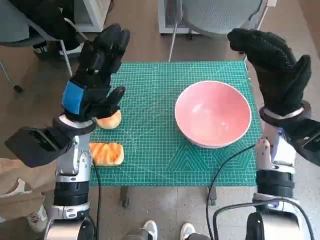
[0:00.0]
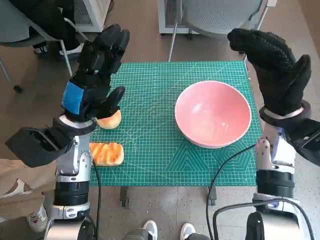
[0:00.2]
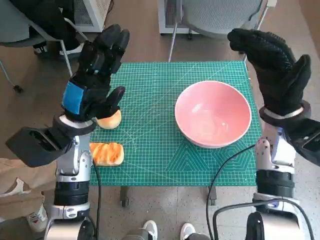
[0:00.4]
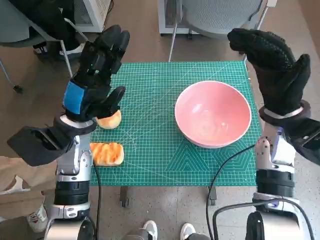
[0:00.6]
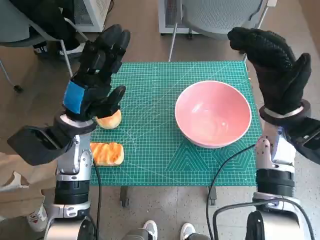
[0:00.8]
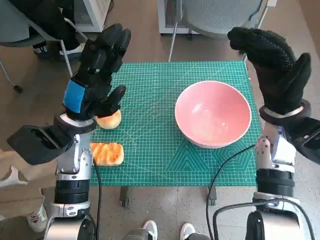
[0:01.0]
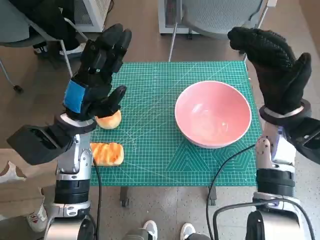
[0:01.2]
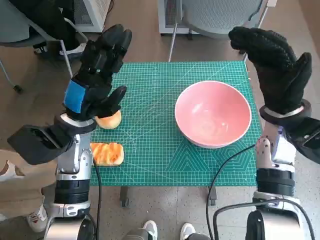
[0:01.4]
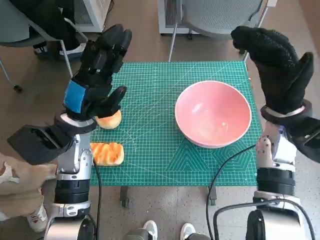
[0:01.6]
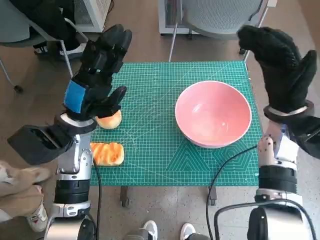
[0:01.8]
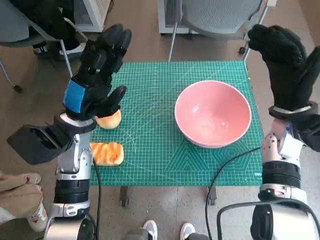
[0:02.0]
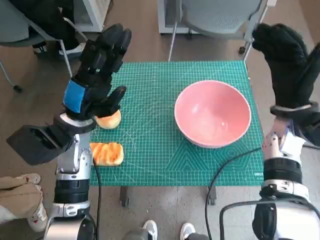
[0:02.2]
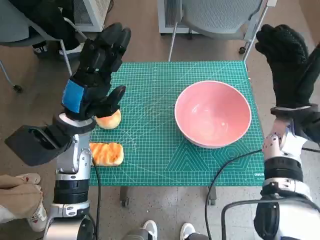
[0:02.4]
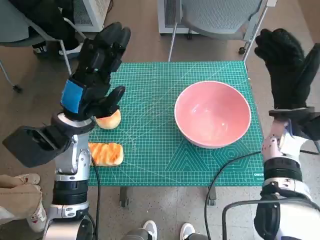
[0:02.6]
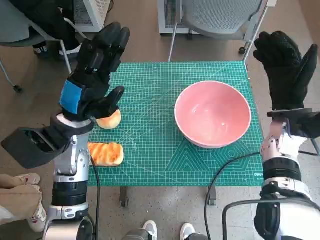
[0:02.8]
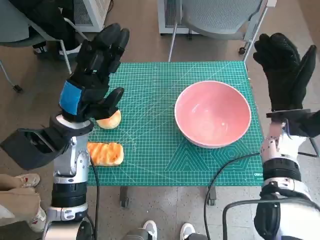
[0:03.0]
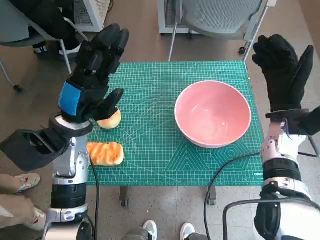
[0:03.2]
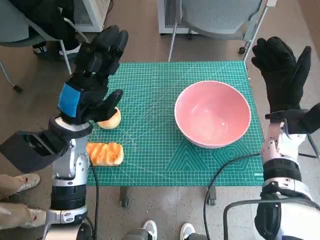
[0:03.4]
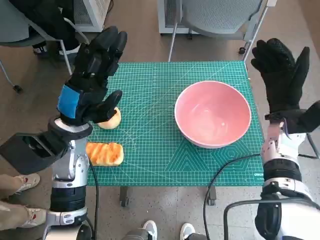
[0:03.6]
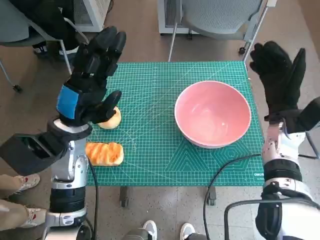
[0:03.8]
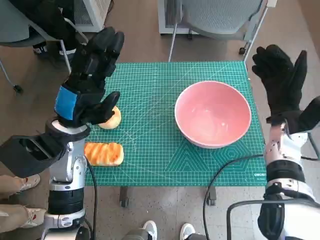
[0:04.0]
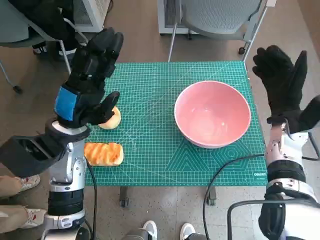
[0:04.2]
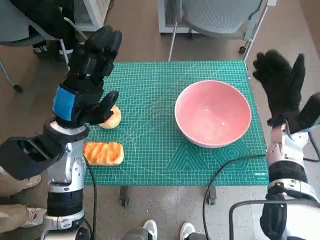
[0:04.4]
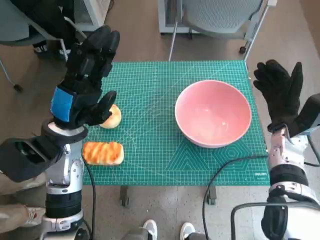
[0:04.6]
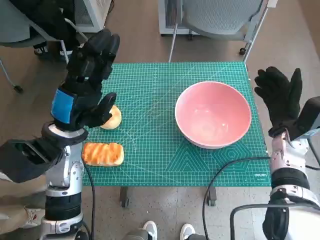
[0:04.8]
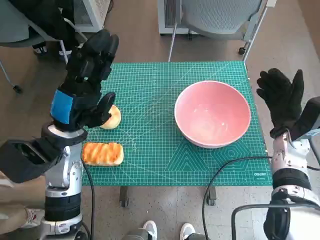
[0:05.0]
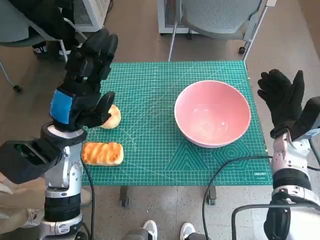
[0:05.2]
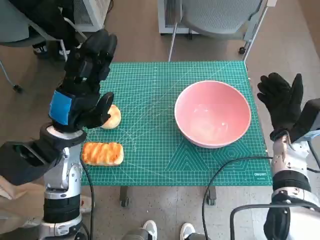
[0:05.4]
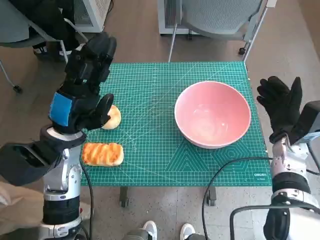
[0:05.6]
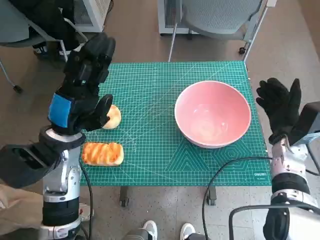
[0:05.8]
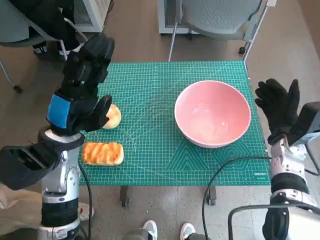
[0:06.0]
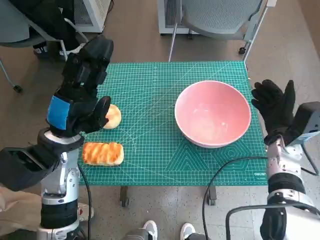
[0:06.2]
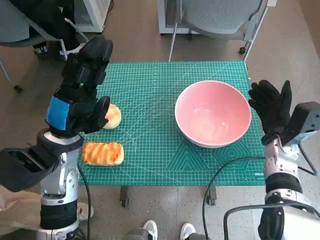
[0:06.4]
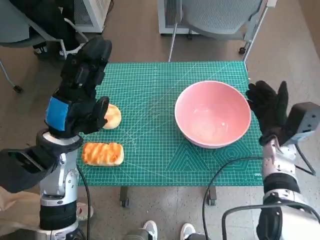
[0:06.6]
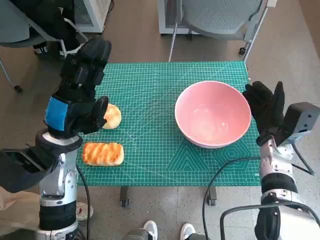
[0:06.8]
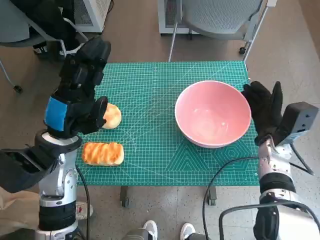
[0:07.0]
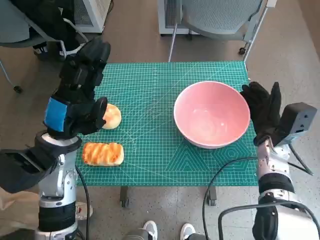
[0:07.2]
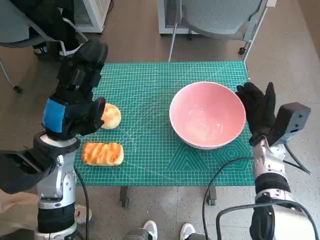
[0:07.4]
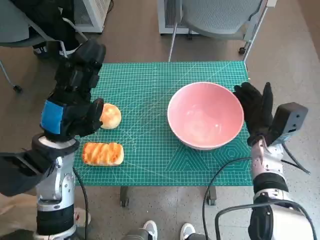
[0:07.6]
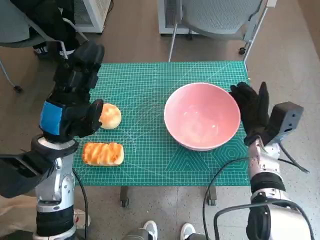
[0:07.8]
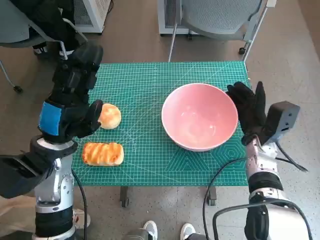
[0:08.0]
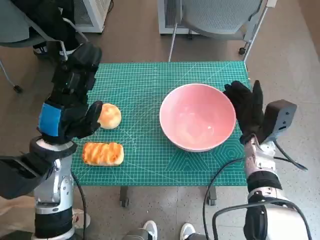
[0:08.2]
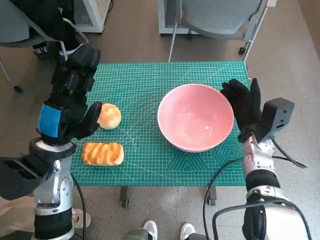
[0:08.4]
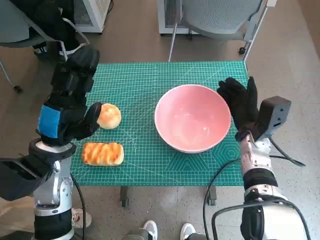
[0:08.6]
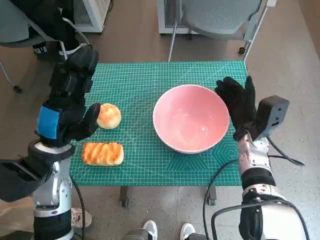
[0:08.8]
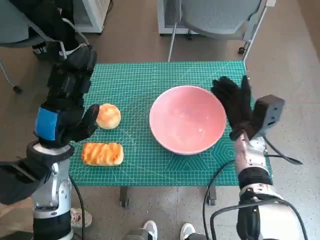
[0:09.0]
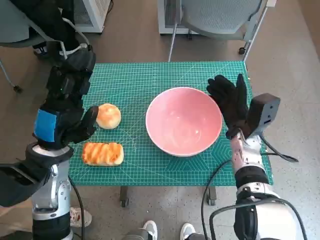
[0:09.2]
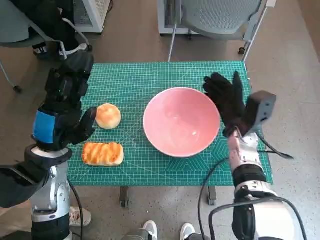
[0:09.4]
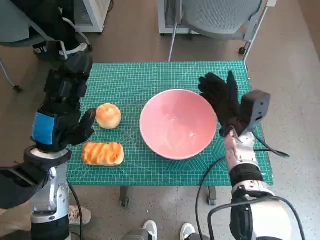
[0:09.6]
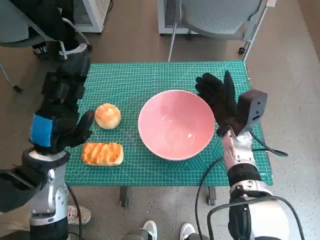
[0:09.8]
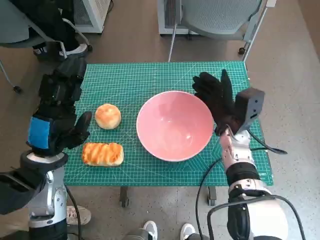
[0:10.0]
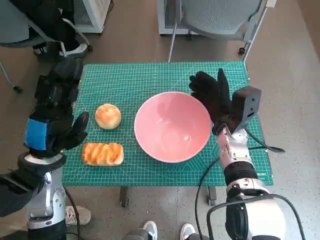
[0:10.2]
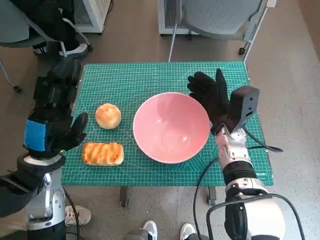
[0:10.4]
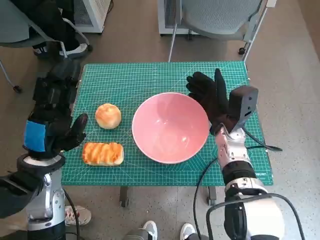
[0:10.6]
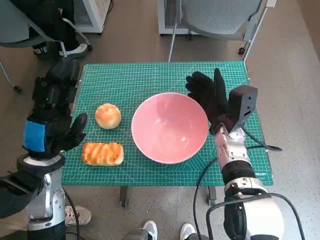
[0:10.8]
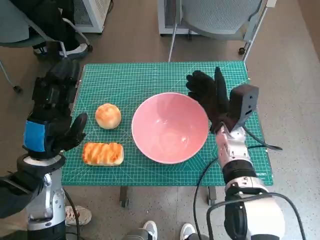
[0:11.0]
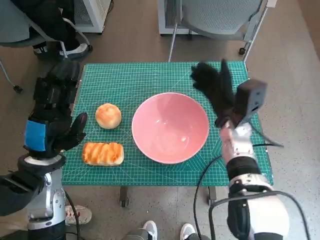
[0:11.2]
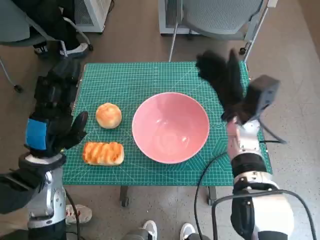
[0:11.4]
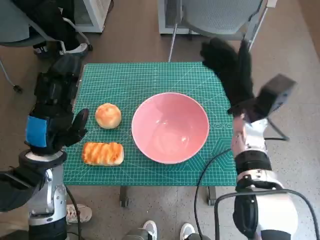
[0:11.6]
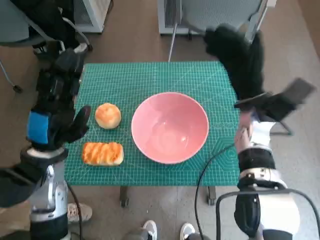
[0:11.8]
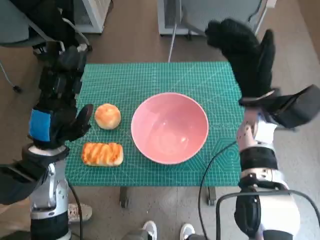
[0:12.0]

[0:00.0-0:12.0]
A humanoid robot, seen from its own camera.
Step, 0:00.0 to 0:11.2: Move the pink bowl to the center of table with right hand.
0:01.6 to 0:03.0: The right hand changes place by roughly 5 cm.
0:03.0 to 0:04.4: The hands make only small movements.
0:10.4 to 0:12.0: The right hand is displaced upward by roughly 10 cm.

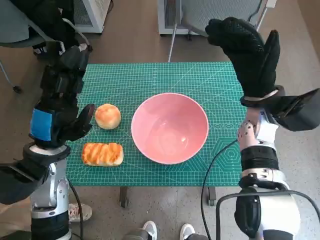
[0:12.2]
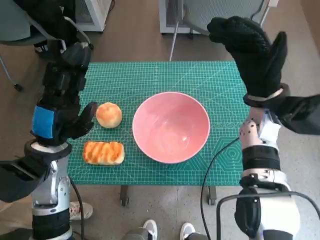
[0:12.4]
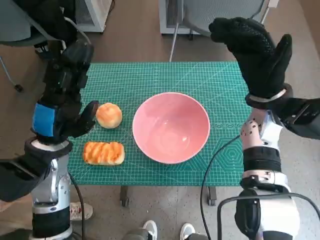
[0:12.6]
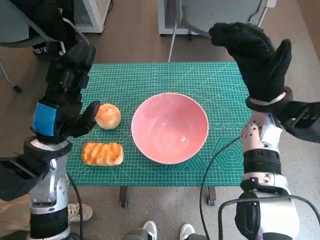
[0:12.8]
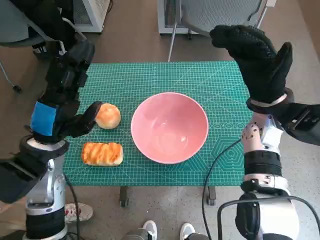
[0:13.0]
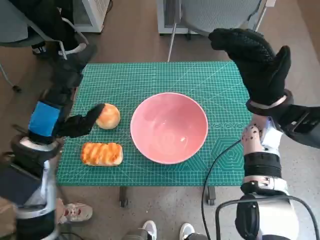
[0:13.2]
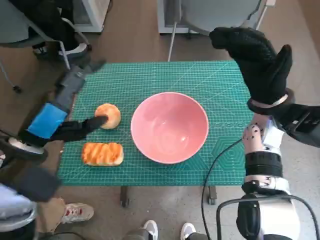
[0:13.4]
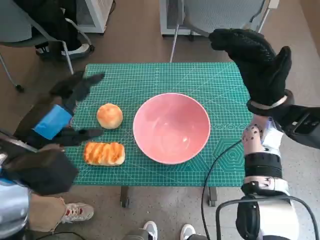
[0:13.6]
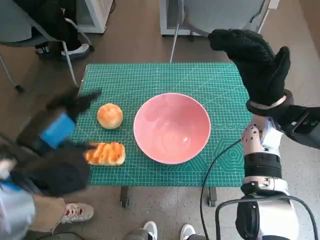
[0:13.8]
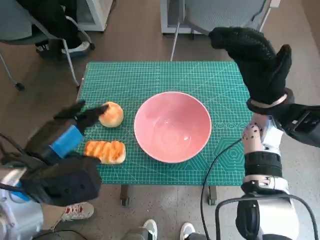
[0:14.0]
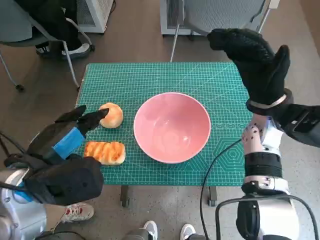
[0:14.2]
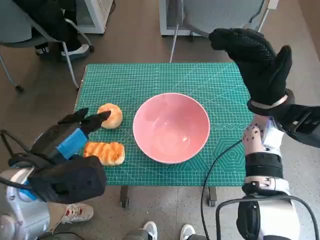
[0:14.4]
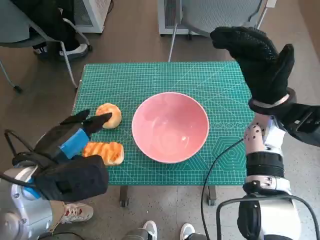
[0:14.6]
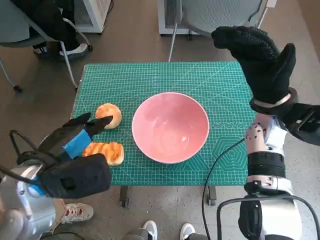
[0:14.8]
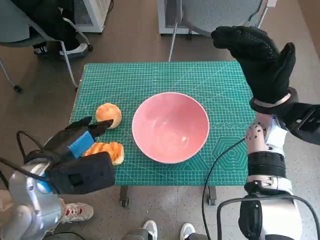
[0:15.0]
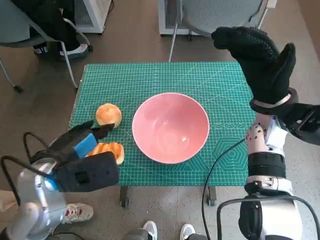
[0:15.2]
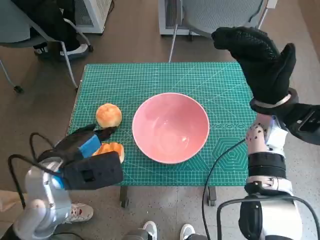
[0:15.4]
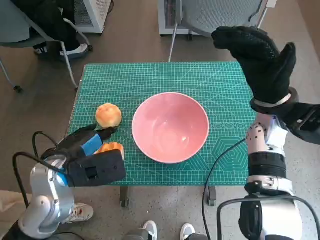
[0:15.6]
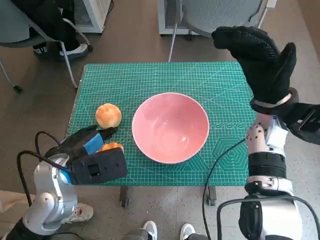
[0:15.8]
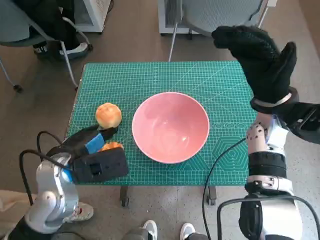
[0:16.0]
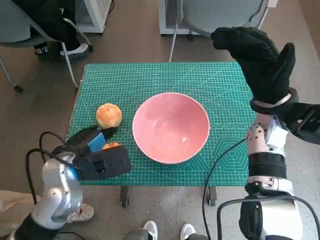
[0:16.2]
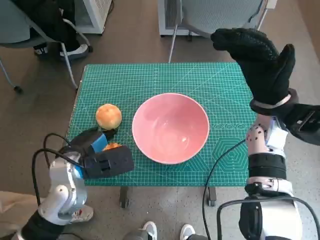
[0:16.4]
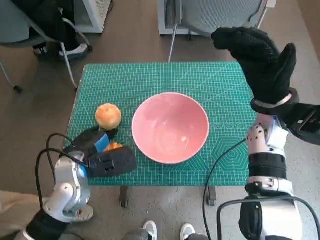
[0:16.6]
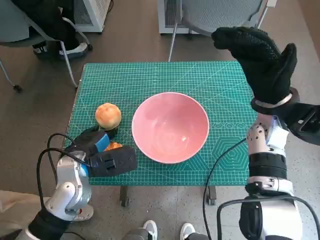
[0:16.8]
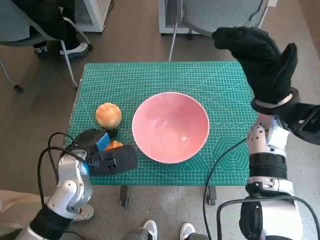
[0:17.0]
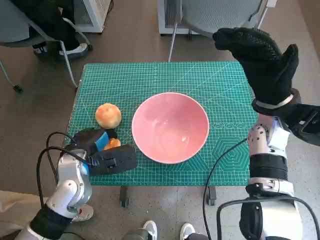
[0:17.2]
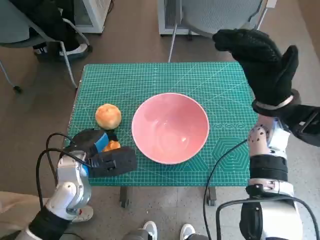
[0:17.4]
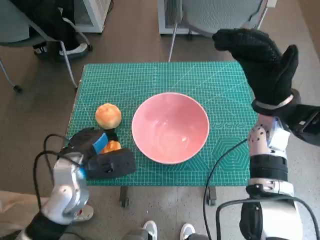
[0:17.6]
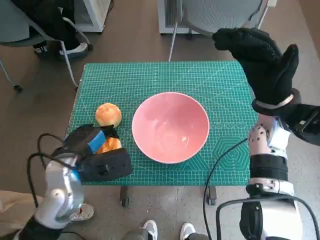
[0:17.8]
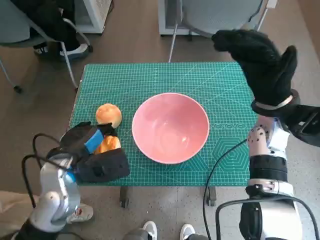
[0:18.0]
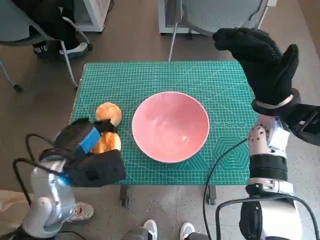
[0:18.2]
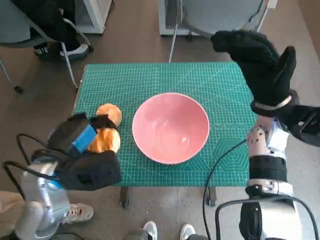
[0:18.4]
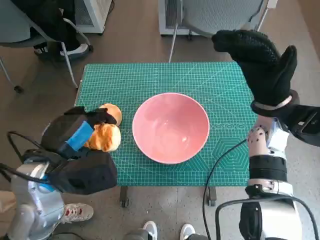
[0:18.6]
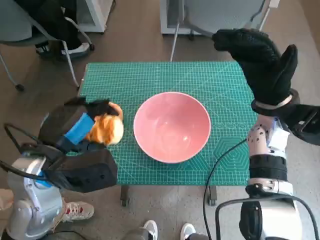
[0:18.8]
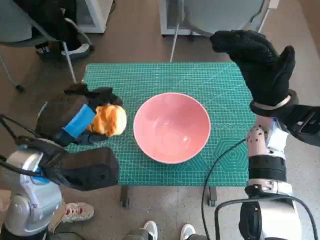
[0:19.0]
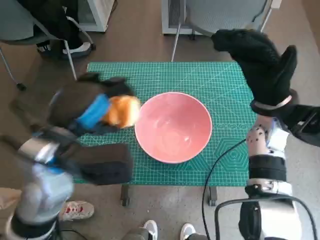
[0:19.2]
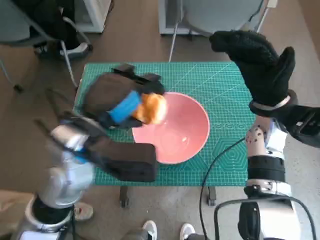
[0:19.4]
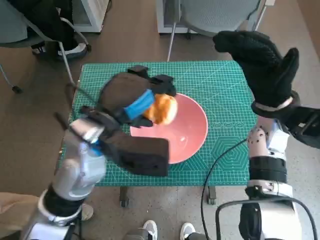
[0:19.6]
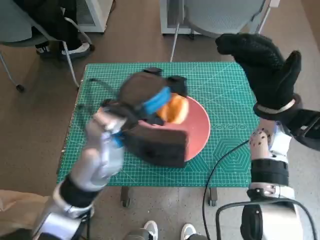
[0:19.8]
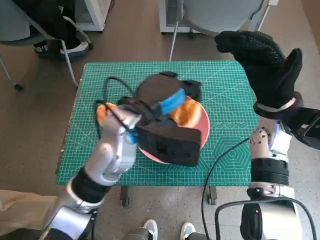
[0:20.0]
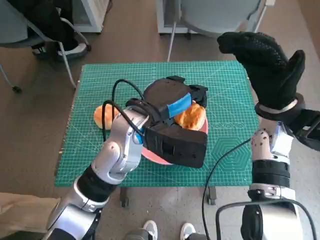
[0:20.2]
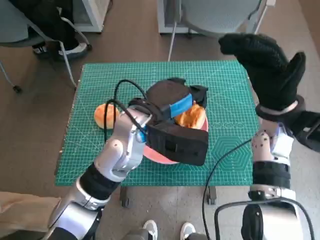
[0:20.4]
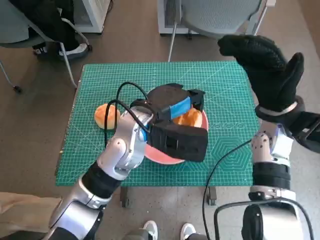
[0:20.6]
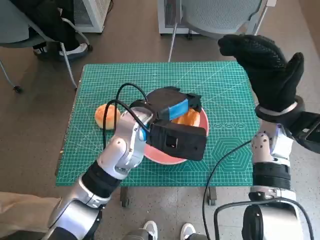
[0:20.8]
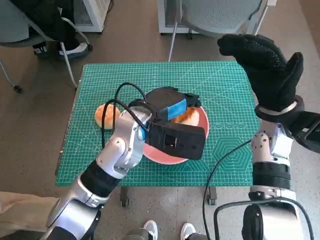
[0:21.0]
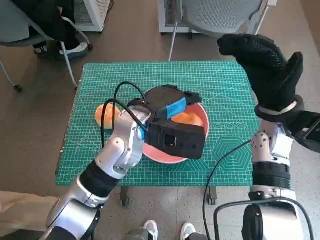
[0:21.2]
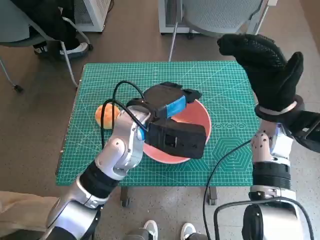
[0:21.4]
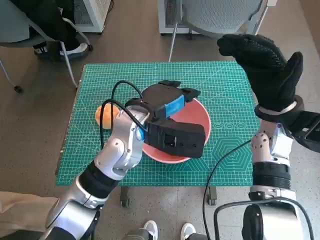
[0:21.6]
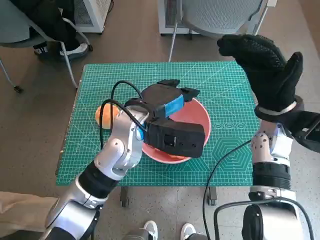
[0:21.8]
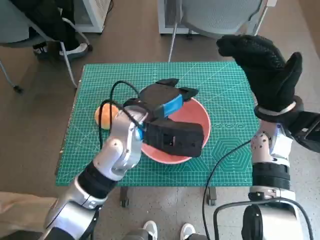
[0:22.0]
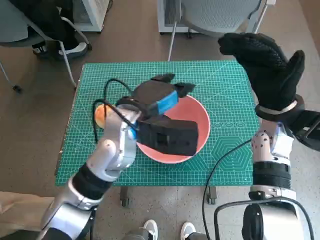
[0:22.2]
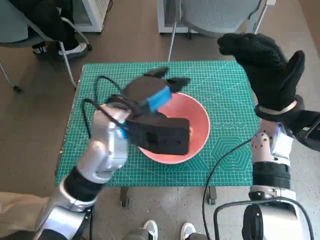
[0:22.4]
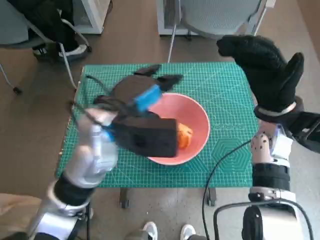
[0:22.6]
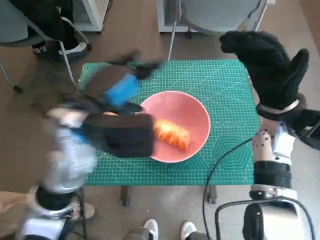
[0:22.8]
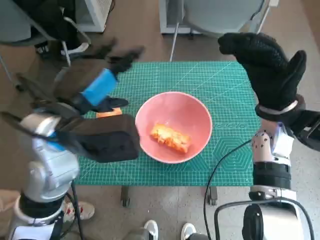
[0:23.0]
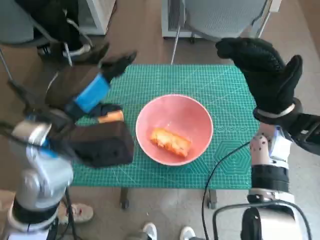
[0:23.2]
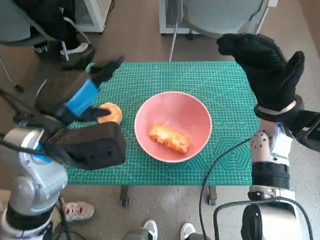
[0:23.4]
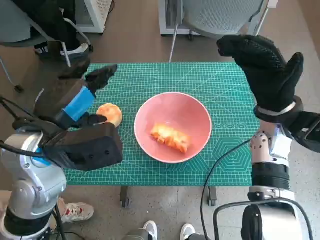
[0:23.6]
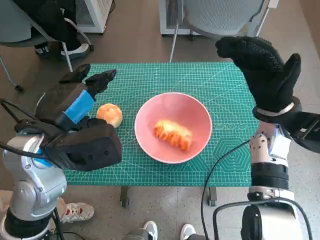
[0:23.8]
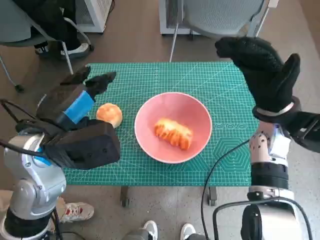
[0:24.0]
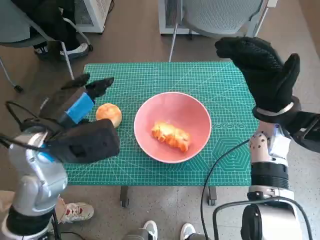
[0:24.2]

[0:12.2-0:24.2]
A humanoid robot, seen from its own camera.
Step, 0:12.2 to 0:17.2: Grasp the long bread with left hand.
Step, 0:17.4 to 0:21.8: Place the long bread in pink bowl with left hand.
0:12.2 to 0:13.8: The left hand goes roughly 5 cm upward.
0:15.2 to 0:16.6: The left hand shifts approximately 5 cm downward.
0:16.6 to 0:18.2: The hands make only small movements.
0:18.2 to 0:19.8: The left hand heads to the right and upward, covering about 10 cm.
0:19.8 to 0:21.2: The left hand moves approximately 5 cm.
0:21.2 to 0:22.6: The left hand shifts by approximately 5 cm.
0:22.6 to 0:24.2: The left hand heads to the left, covering approximately 10 cm.
